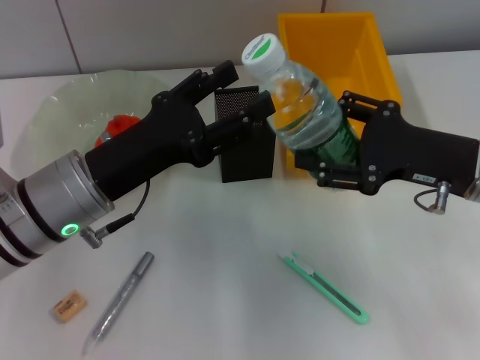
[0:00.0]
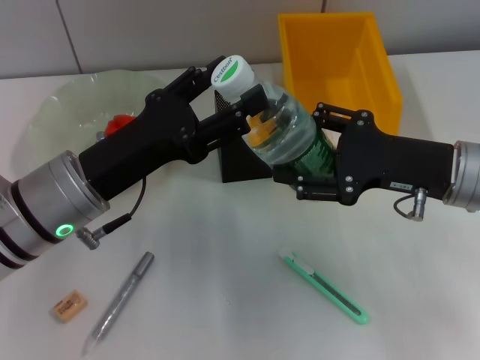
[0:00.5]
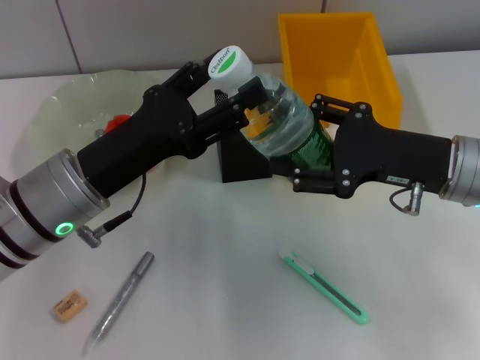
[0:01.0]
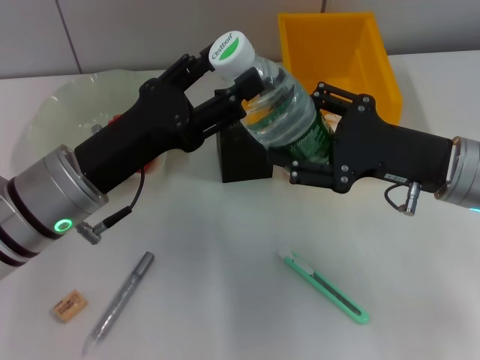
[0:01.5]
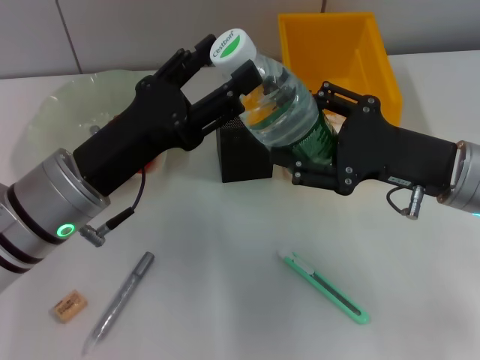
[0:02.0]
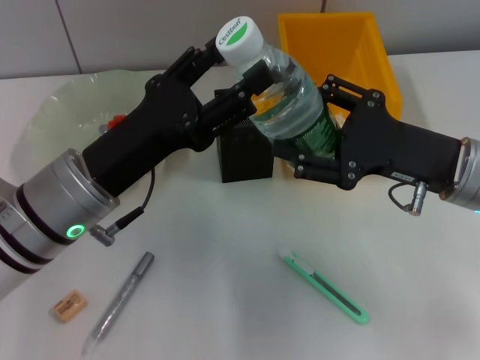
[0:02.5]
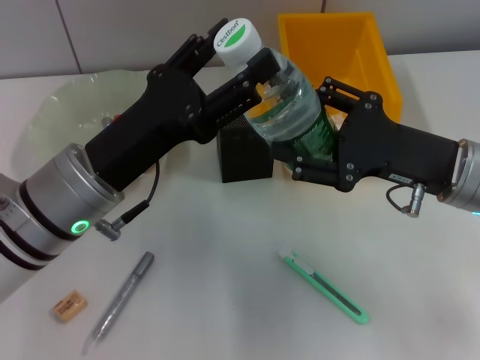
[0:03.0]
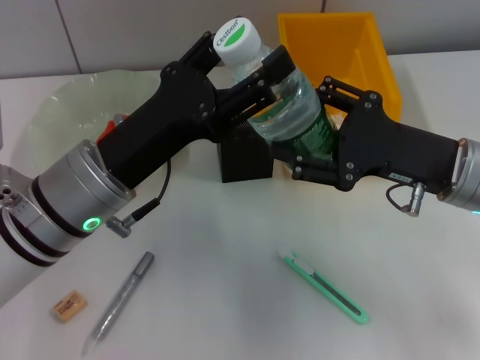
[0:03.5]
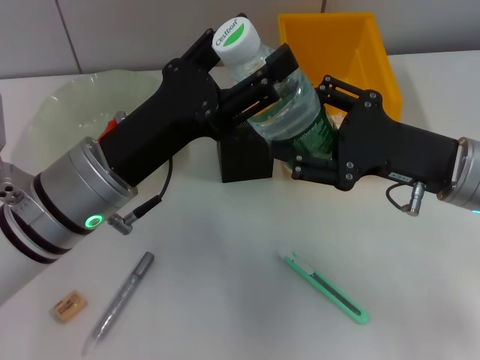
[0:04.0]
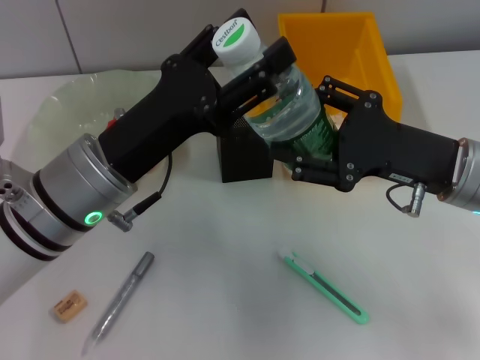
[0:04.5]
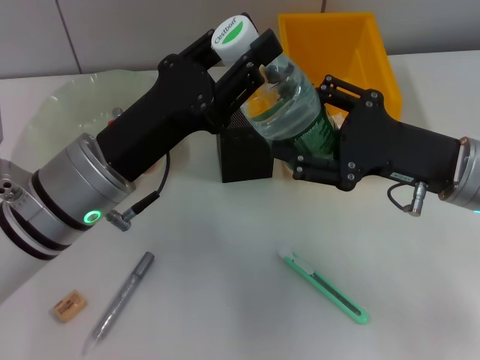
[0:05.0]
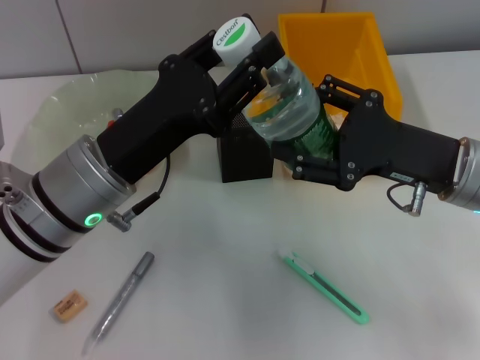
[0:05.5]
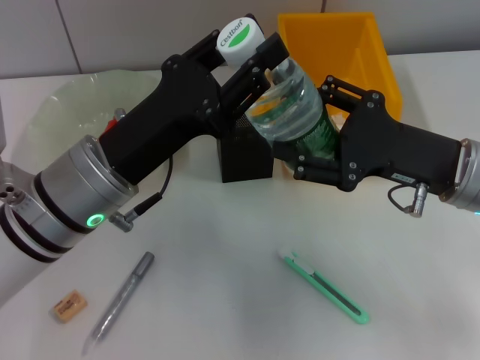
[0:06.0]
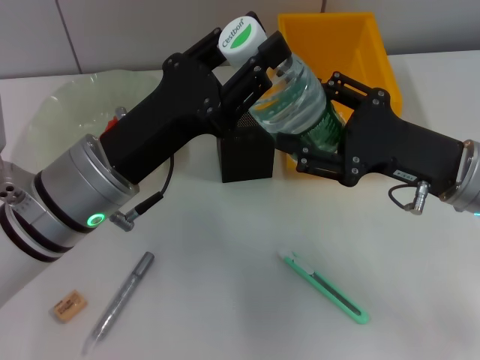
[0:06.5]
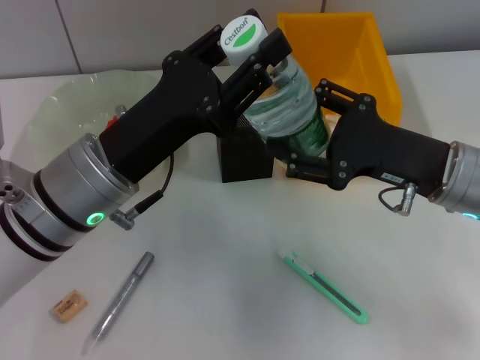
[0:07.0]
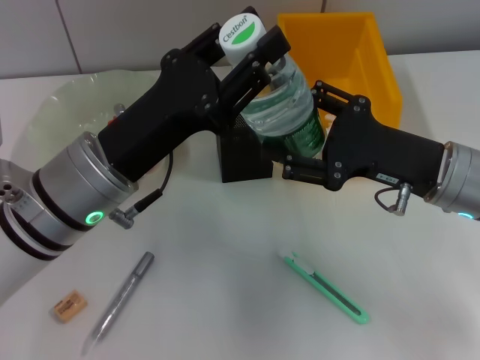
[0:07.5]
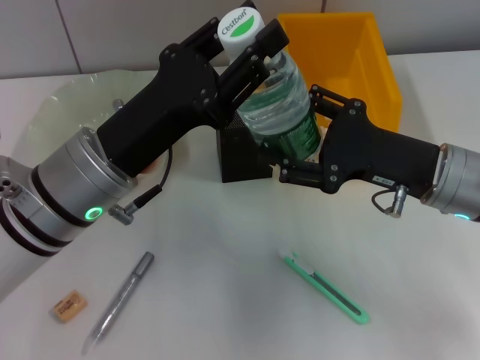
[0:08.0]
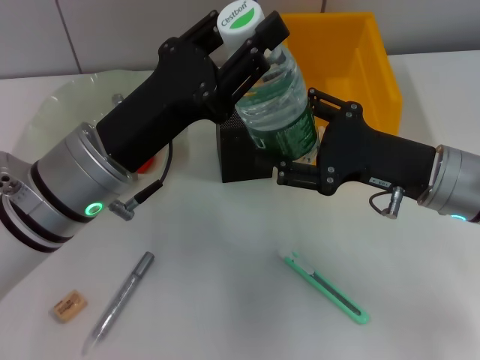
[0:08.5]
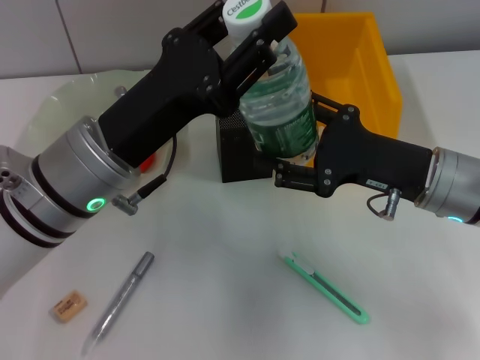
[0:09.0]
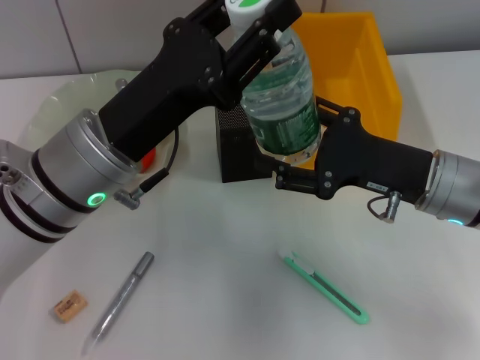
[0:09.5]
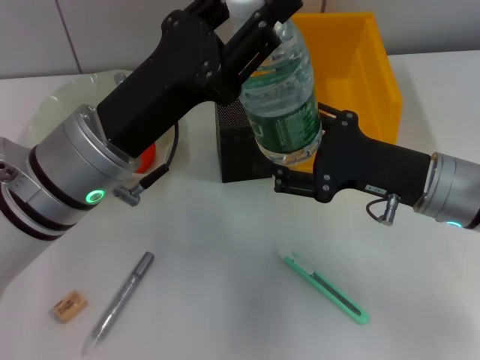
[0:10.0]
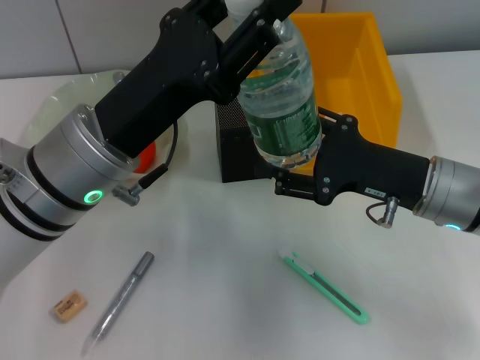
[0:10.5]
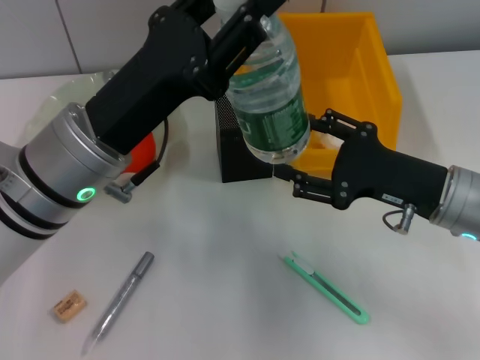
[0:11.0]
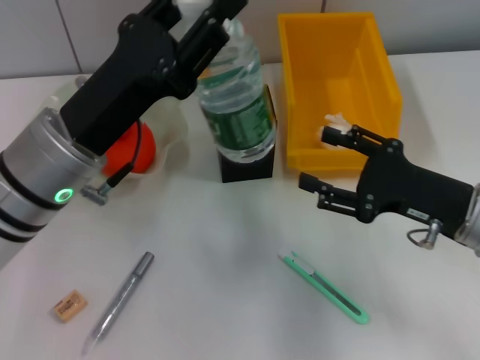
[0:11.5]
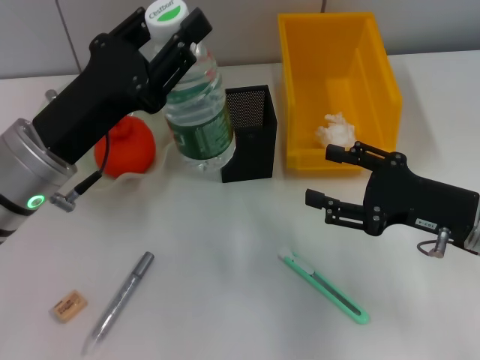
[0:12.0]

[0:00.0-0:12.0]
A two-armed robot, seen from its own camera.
Step, 0:00.0 to 0:11.0: Pass the water bottle from the right hand to the left hand.
0:00.0 to 0:04.0: The grippers move only a little.
0:04.0 to 0:06.0: The left gripper closes up.
0:06.0 to 0:10.0: The grippers move only a little.
0:10.0 to 0:12.0: The right gripper moves approximately 5 cm. The left gripper heads to the left, covering approximately 5 cm.

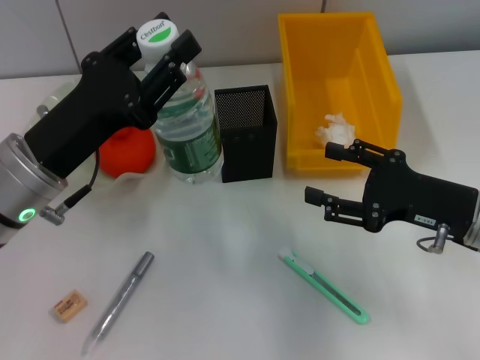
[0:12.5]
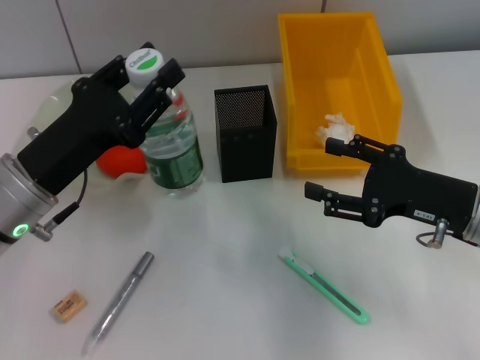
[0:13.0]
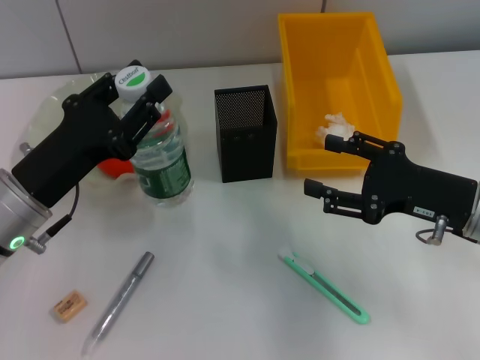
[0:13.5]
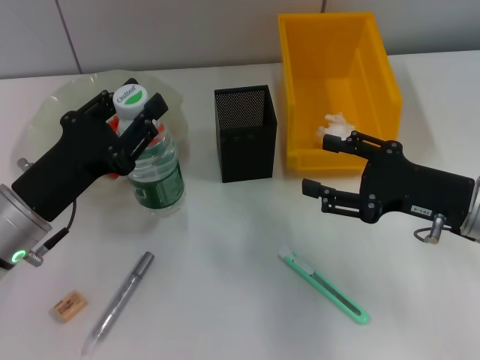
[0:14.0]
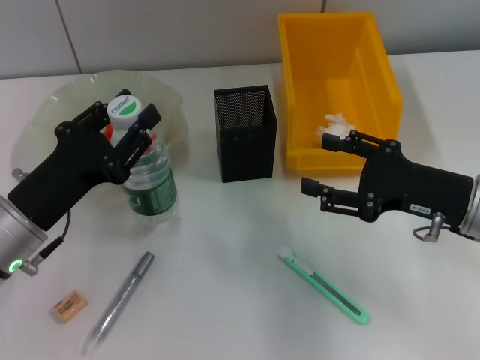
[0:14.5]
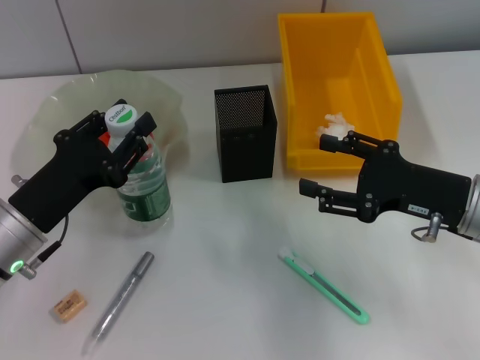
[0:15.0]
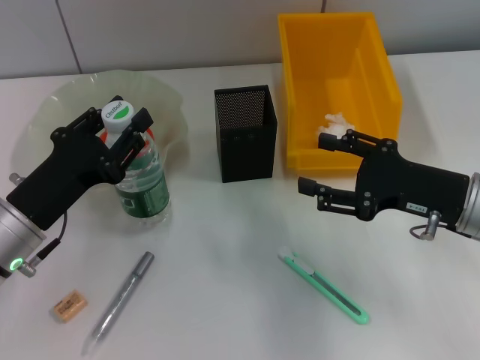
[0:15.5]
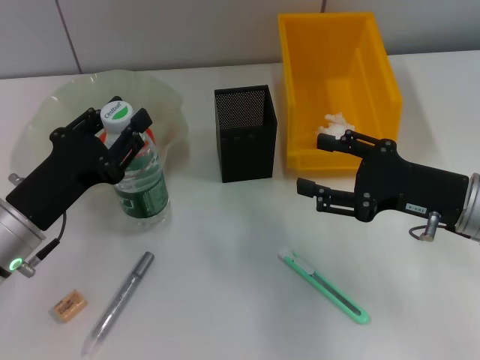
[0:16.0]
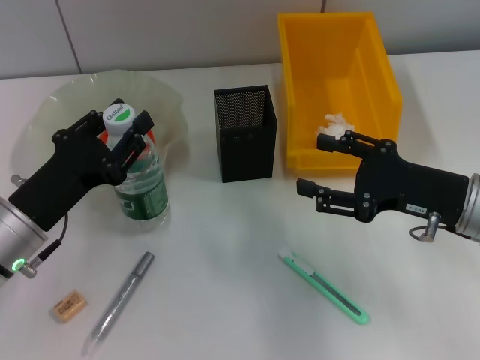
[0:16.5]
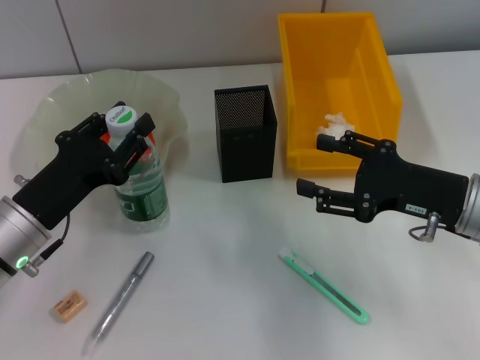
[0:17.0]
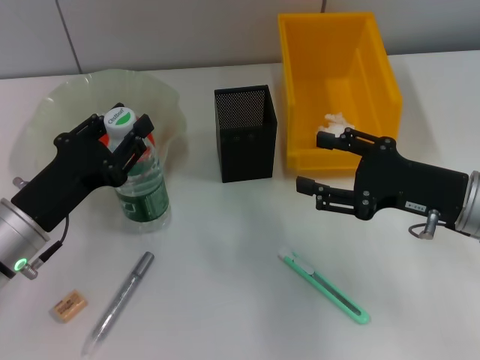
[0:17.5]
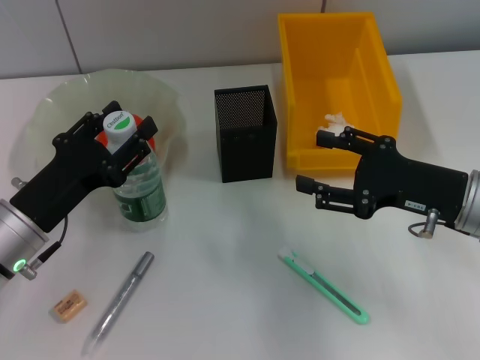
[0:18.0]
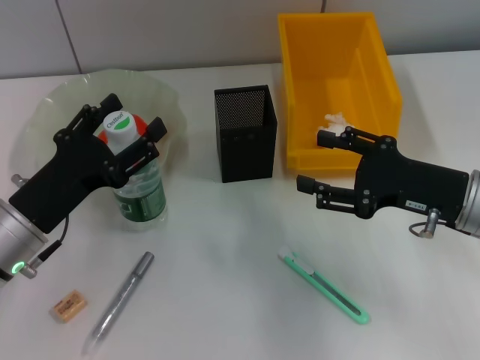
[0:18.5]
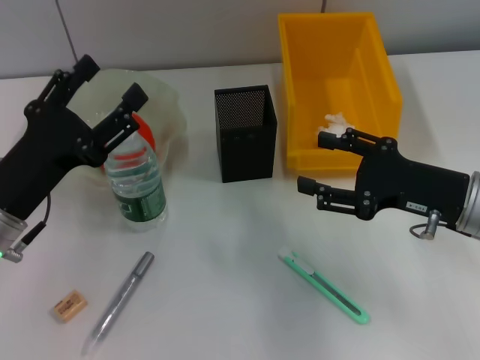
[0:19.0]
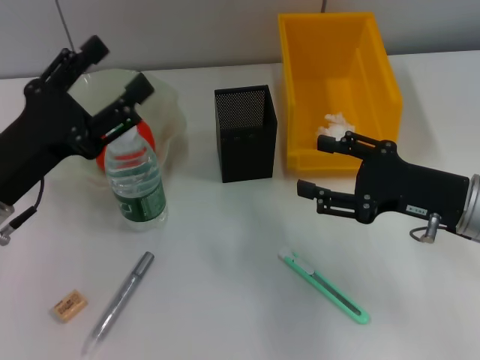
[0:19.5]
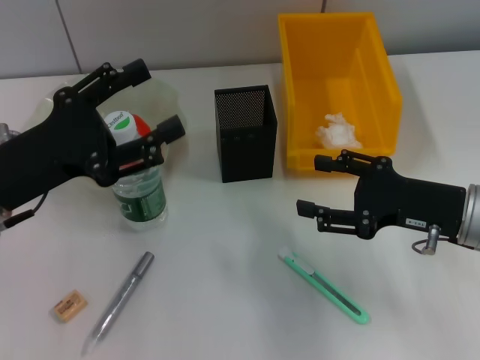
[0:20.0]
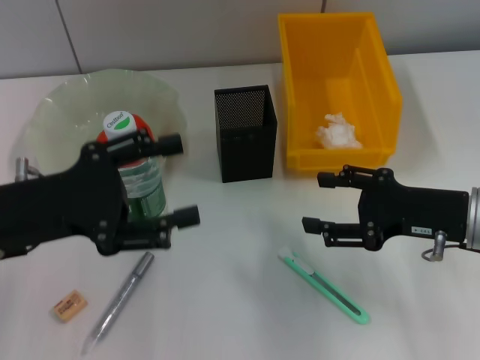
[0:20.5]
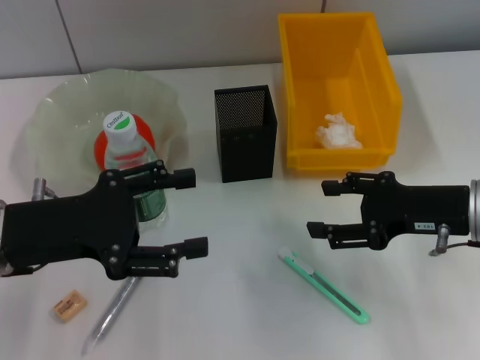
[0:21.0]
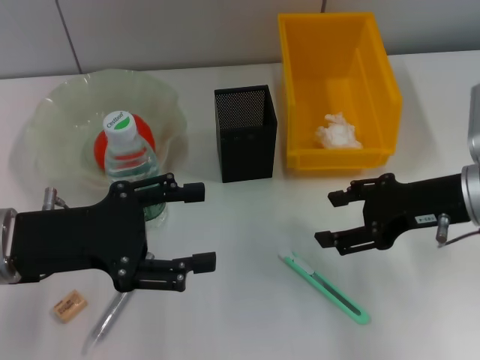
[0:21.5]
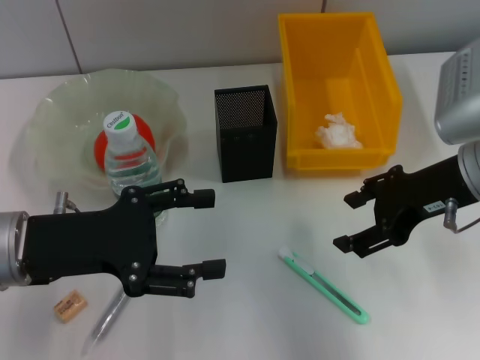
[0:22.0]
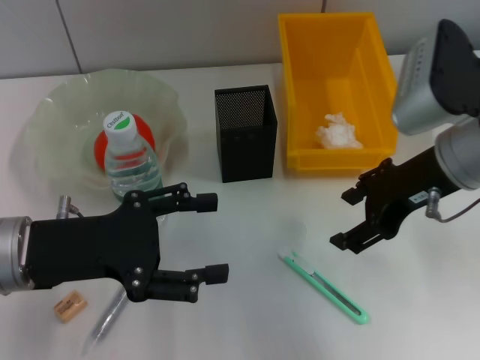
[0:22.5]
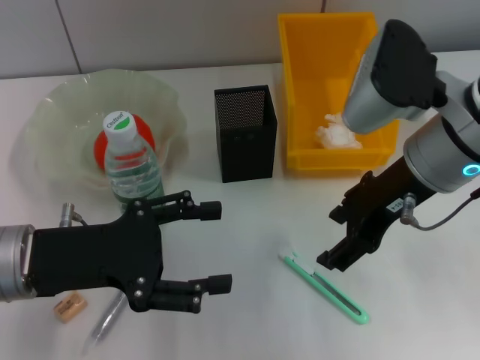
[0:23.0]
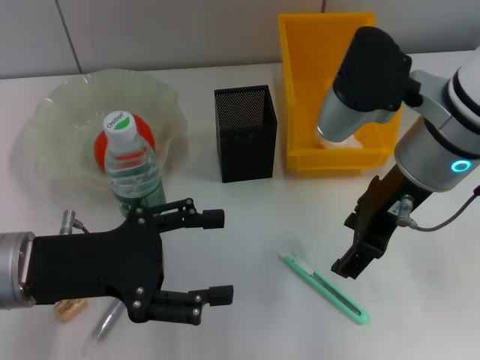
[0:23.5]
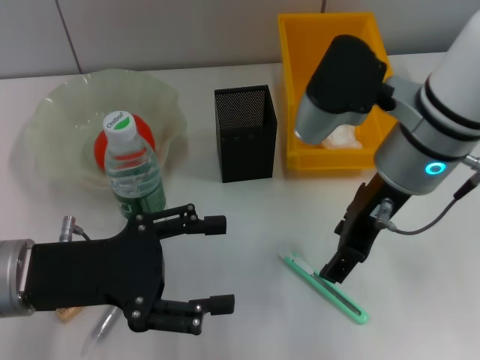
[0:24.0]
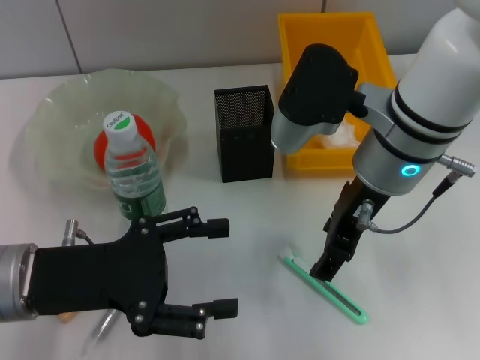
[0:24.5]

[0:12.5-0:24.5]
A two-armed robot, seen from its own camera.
Step, 0:12.5 to 0:18.0: Place the water bottle on the table with the left hand.
0:12.5 to 0:14.5: The left gripper travels downward by approximately 5 cm.
0:14.5 to 0:16.5: The grippers stay close to where they were, moving slightly.
0:16.5 to 0:18.5: The left gripper opens.
0:18.5 to 0:20.5: The left gripper heads upward, covering some 5 cm.
0:20.5 to 0:22.5: The right gripper goes about 10 cm upward and to the left.
0:22.5 to 0:24.5: The right gripper moves to the left, some 10 cm.

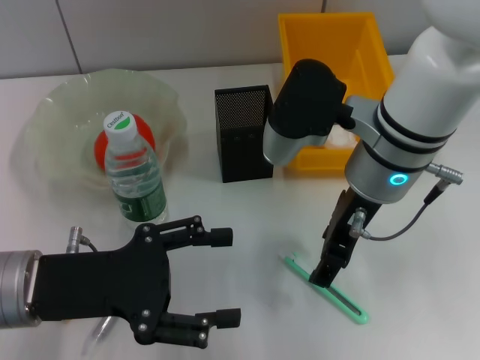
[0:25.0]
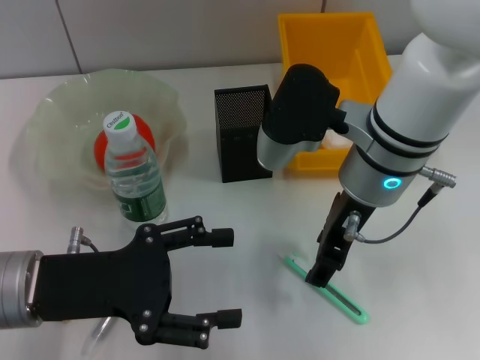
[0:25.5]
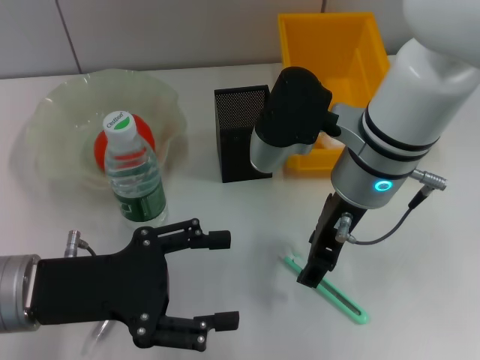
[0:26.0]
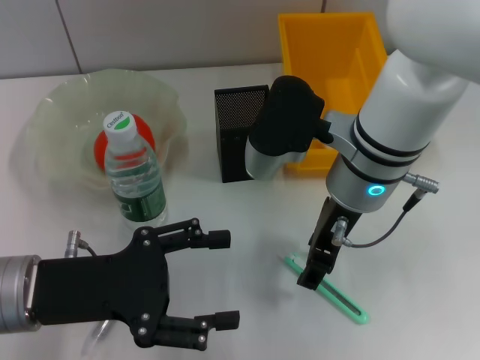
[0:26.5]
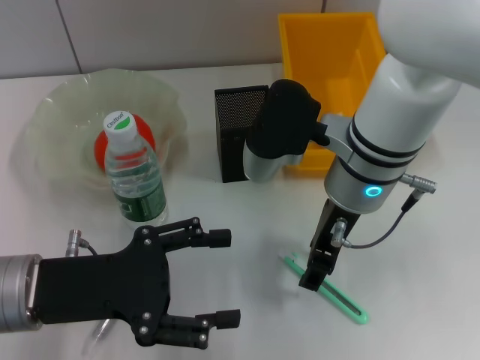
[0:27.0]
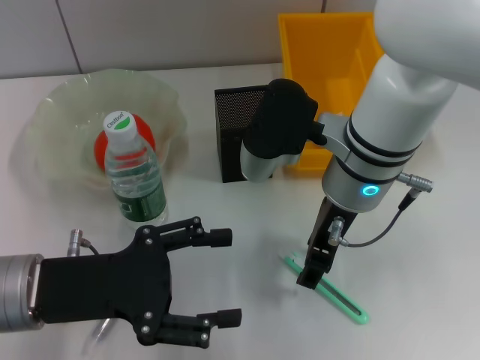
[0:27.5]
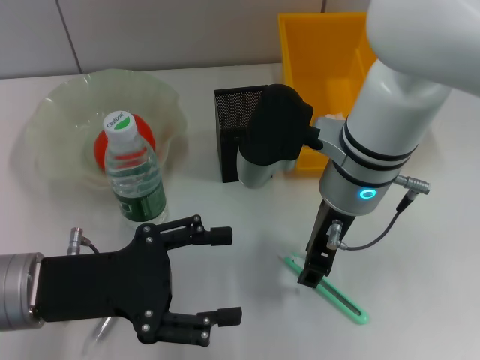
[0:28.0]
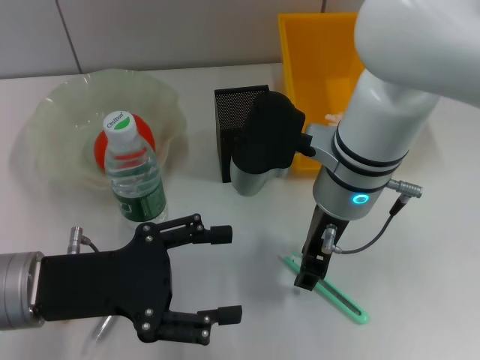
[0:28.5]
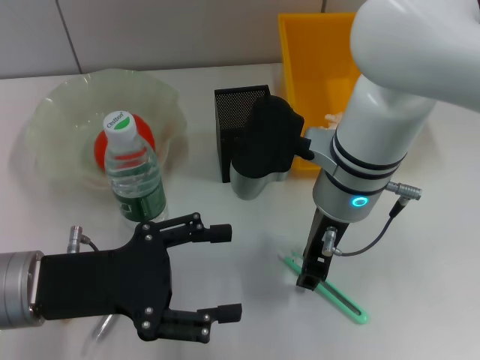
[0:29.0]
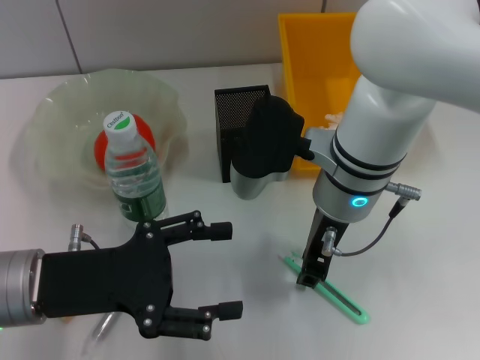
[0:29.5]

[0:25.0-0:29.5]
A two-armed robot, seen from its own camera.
0:25.0 to 0:27.0: There are only small adjustments of the grippers.
0:27.0 to 0:29.5: The right gripper closes its fingers.
